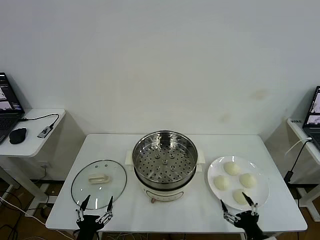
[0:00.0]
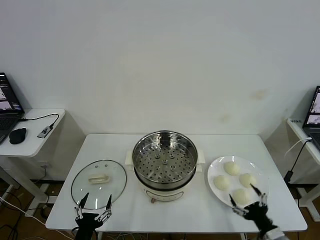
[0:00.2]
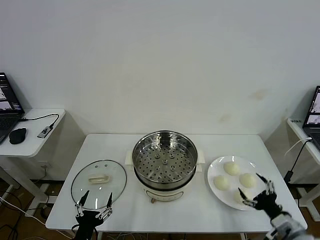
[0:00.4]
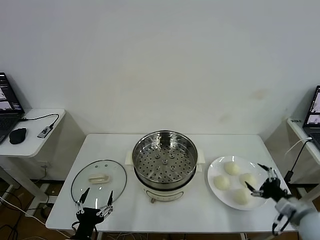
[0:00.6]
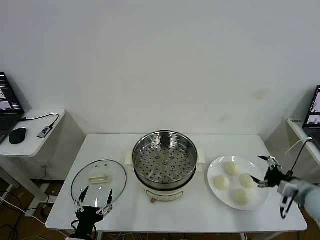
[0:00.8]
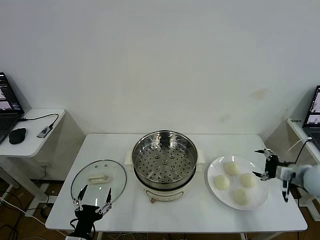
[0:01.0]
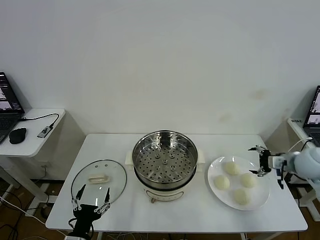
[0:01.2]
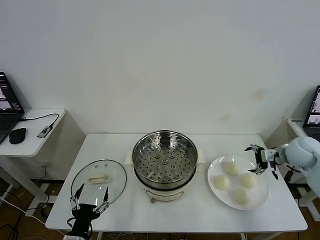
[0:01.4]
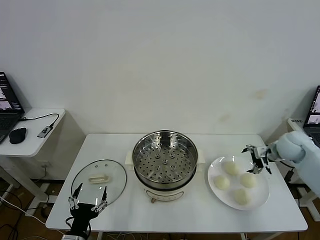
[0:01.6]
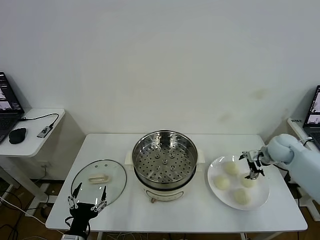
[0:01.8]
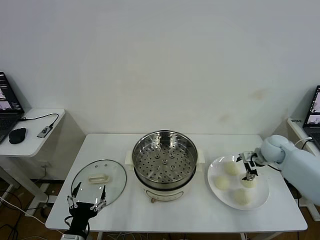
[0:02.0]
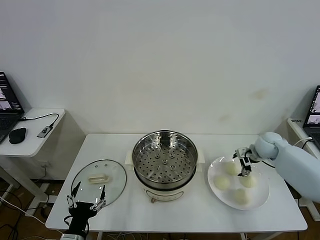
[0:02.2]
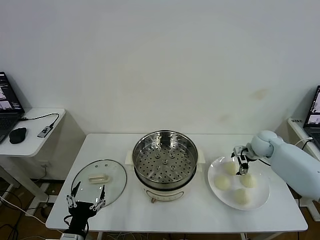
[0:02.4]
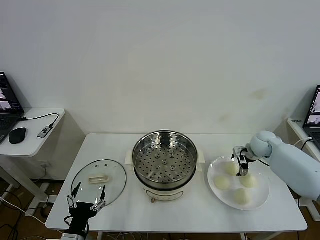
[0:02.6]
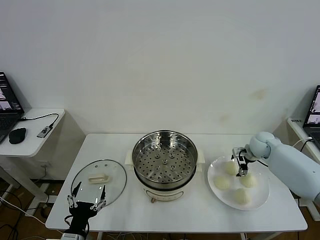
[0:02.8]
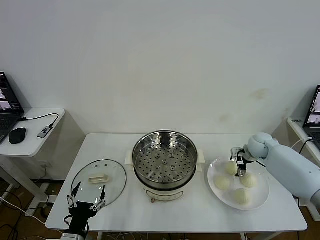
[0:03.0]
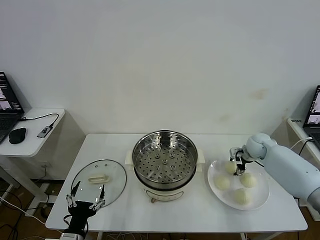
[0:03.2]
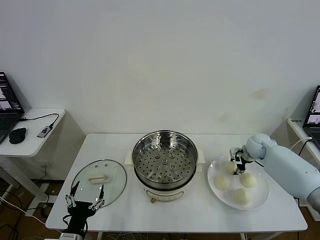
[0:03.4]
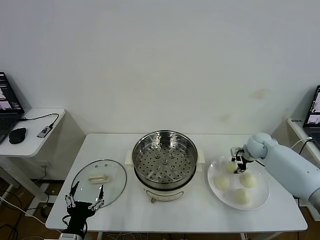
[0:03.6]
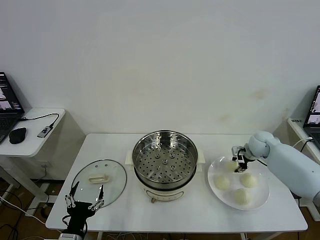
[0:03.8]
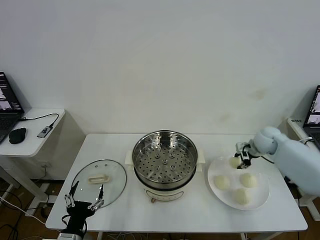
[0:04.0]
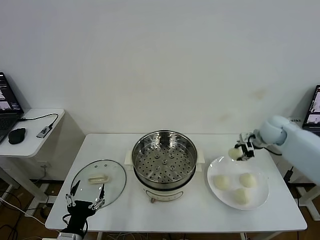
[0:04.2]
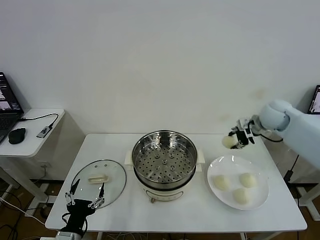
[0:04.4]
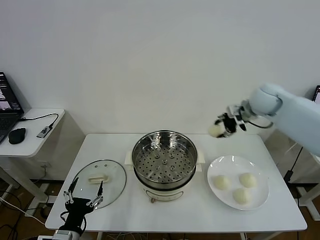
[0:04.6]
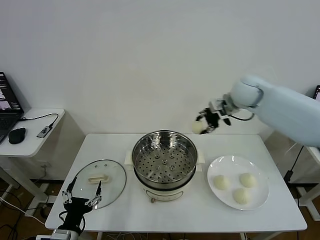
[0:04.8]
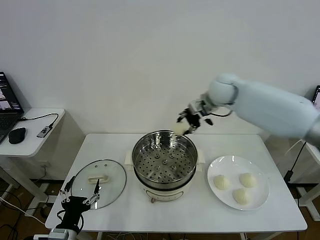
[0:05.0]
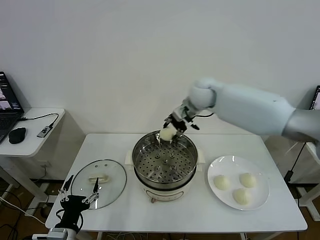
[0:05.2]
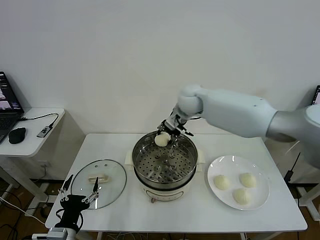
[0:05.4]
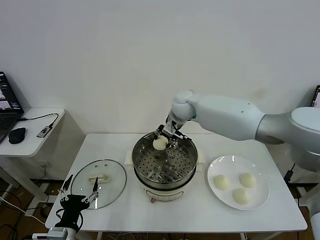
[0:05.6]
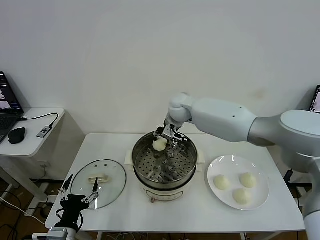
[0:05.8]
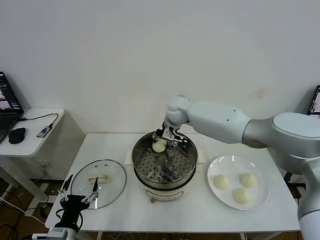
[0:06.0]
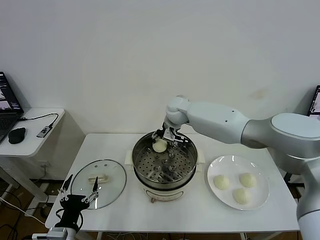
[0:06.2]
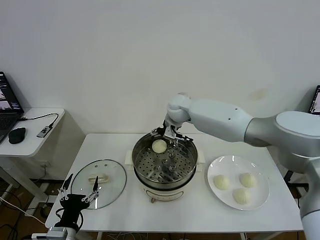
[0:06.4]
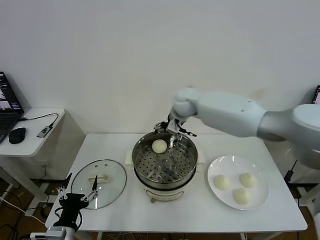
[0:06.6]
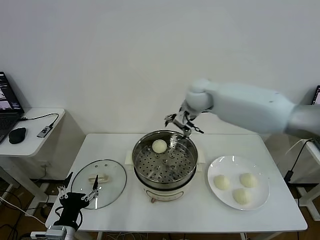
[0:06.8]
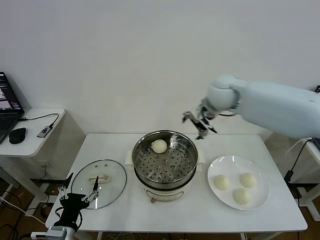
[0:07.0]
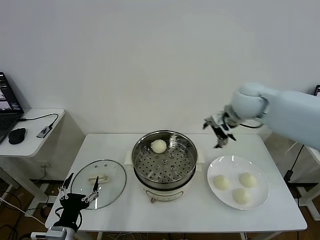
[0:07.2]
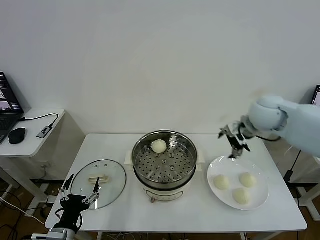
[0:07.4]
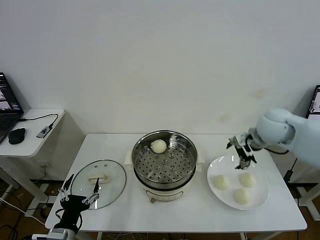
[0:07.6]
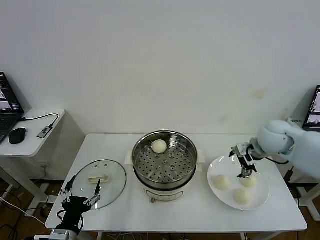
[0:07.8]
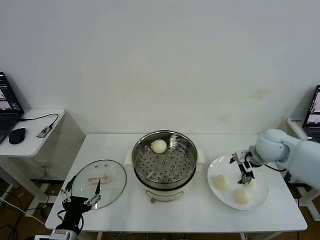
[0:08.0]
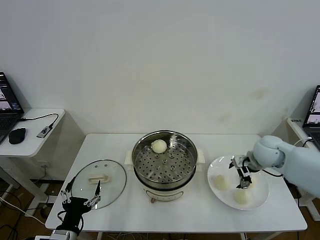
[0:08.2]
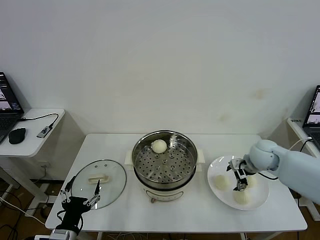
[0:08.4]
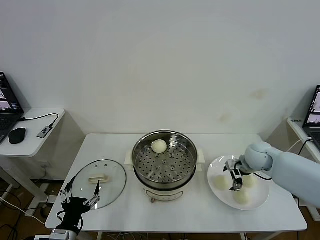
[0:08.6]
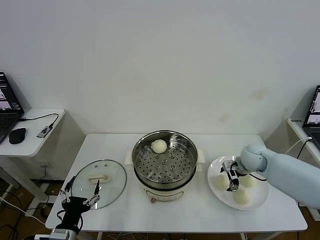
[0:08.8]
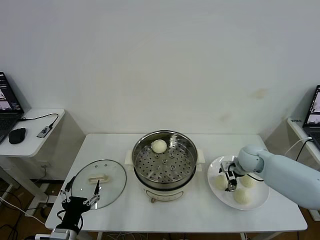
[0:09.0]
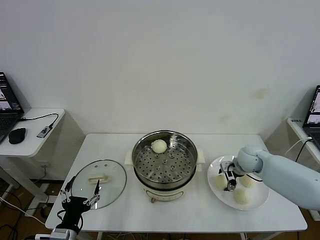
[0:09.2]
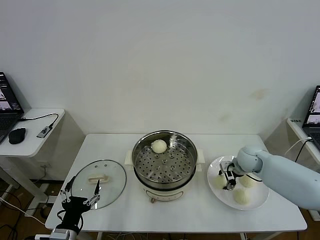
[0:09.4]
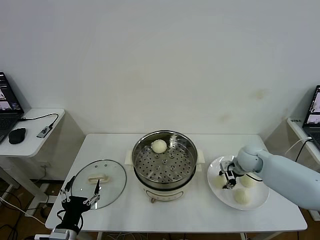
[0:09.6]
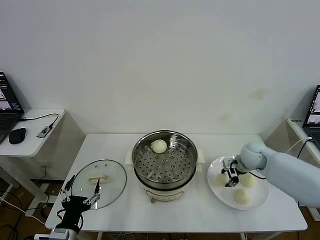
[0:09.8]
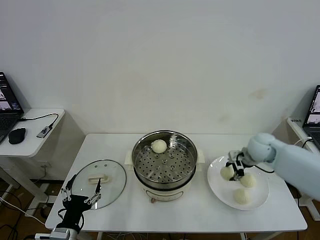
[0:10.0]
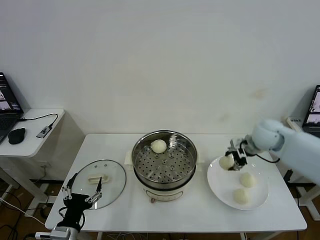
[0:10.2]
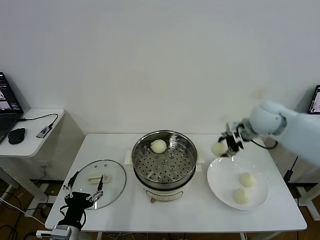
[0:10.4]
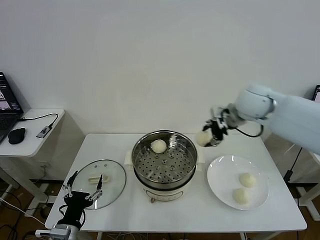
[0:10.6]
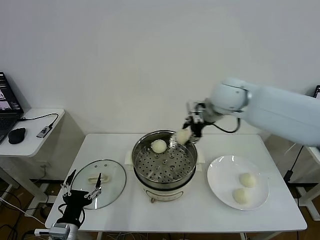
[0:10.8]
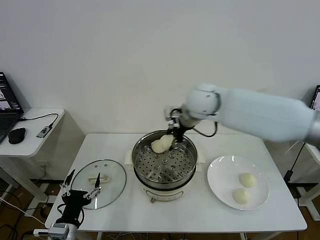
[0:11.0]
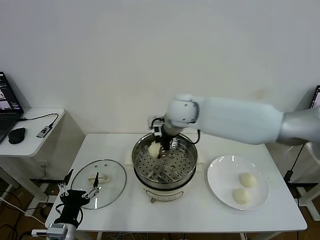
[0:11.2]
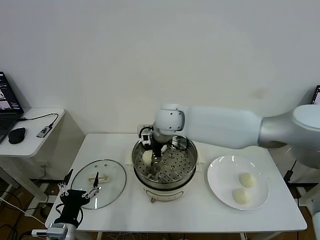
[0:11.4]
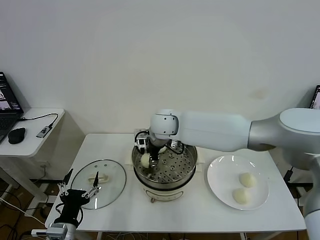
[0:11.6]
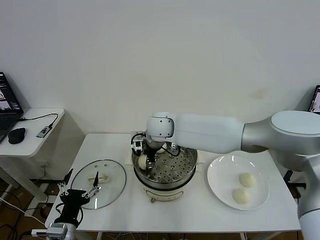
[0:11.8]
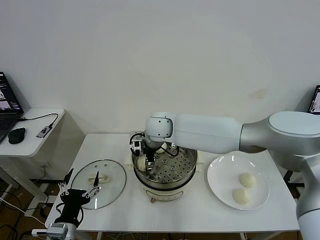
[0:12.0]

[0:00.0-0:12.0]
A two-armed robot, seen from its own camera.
Task of the whole recording: take steamed baozi put them in steamer then cover it.
Step, 0:00.0 to 0:03.4: Grasp the baozi in the plate with right gripper.
Step, 0:03.6 to 0:06.4: Place the baozi on the steamer with right gripper.
Step, 0:06.6 to 0:09.2: Grasp the baozi in the plate with right gripper.
0:01.6 to 0:03.0: The right gripper travels downward and forward by some 10 cm.
0:03.0 to 0:04.4: The right gripper heads upward, covering about 20 cm, and closes up.
0:04.4 to 0:06.0: The right gripper shifts some 30 cm to the left.
0:06.0 to 0:07.6: The right gripper is displaced to the right and backward by roughly 30 cm, and opens its fingers.
0:07.6 to 0:09.0: The right gripper is displaced downward by some 15 cm.
0:09.0 to 0:10.4: The right gripper shifts approximately 20 cm upward, and closes its fingers.
0:10.4 to 0:12.0: The right gripper shifts about 30 cm to the left, and opens up.

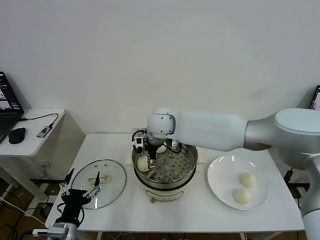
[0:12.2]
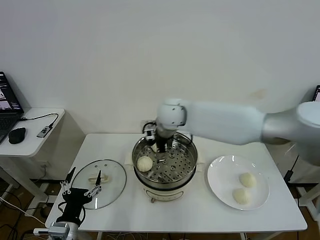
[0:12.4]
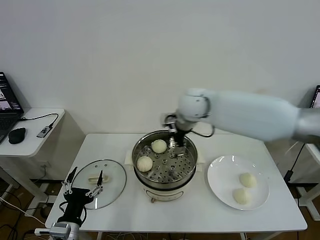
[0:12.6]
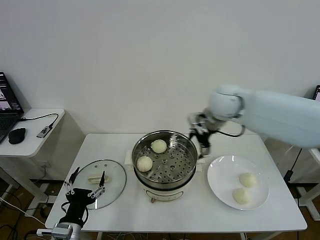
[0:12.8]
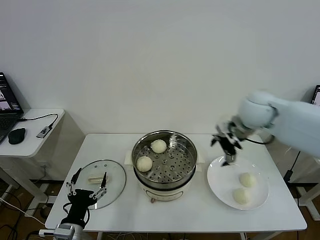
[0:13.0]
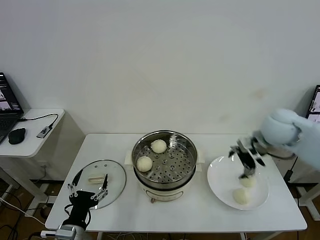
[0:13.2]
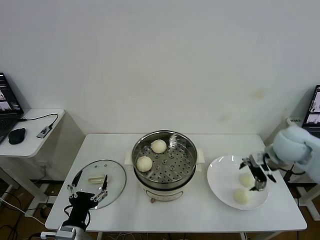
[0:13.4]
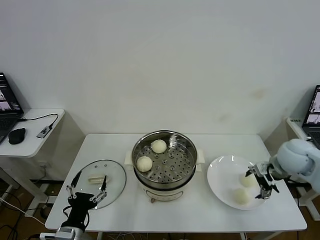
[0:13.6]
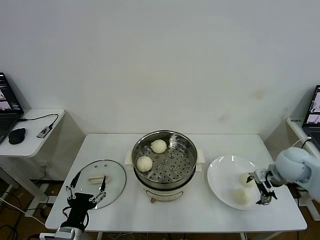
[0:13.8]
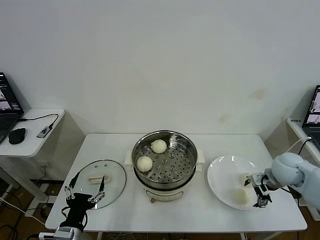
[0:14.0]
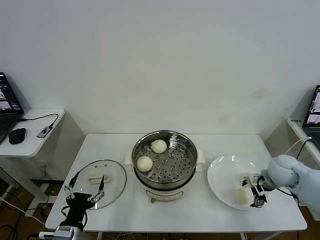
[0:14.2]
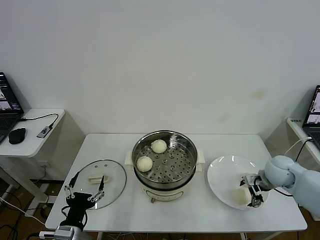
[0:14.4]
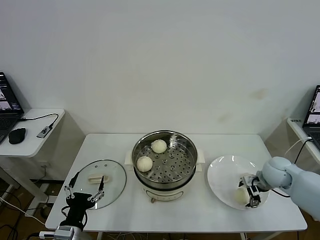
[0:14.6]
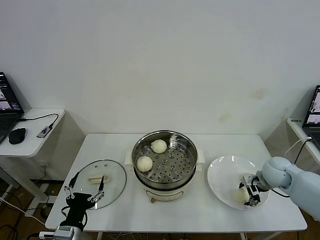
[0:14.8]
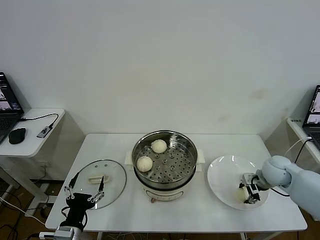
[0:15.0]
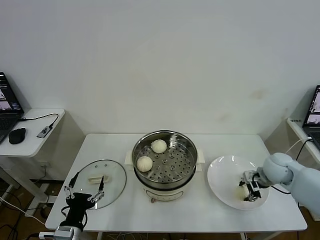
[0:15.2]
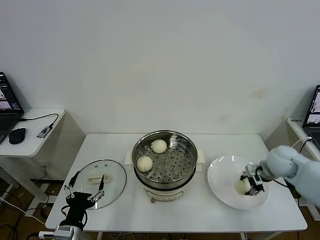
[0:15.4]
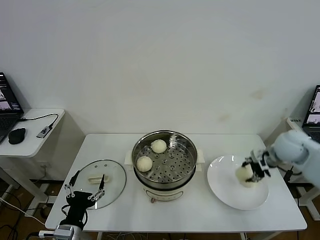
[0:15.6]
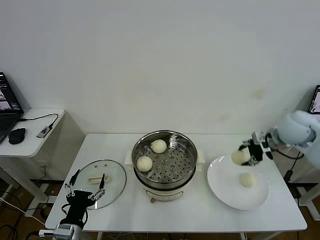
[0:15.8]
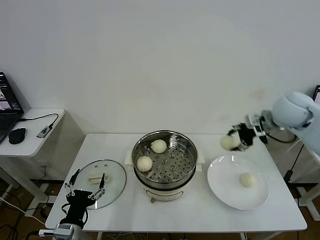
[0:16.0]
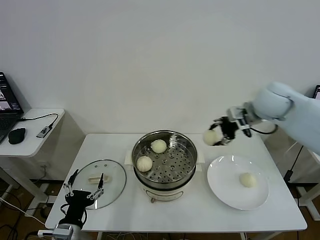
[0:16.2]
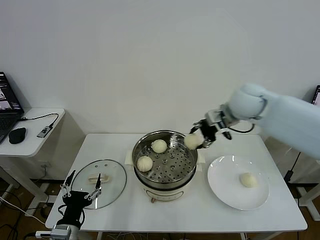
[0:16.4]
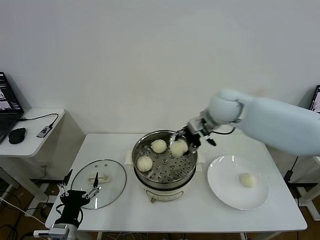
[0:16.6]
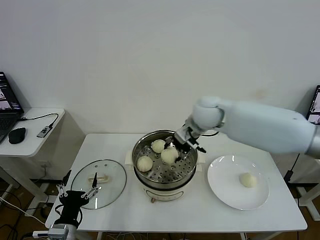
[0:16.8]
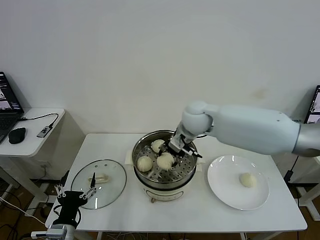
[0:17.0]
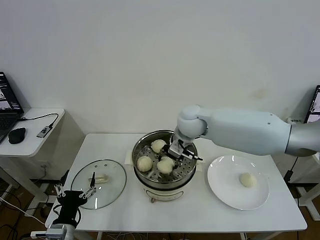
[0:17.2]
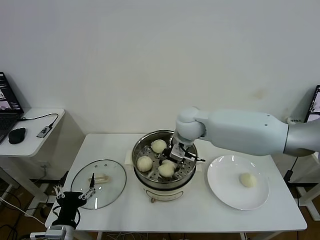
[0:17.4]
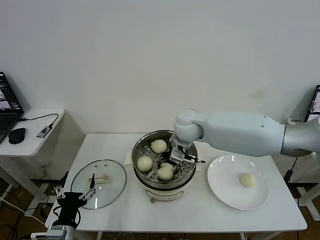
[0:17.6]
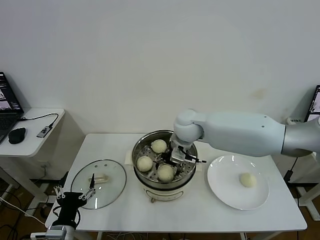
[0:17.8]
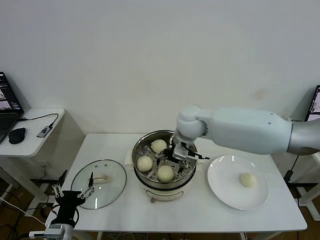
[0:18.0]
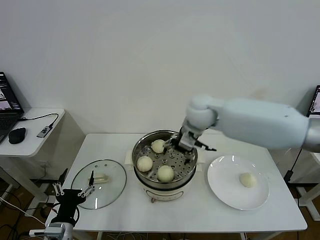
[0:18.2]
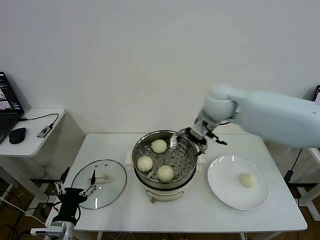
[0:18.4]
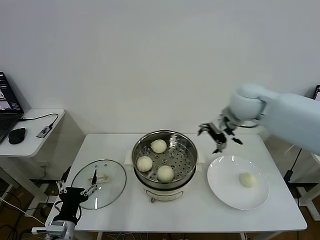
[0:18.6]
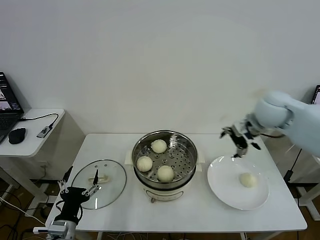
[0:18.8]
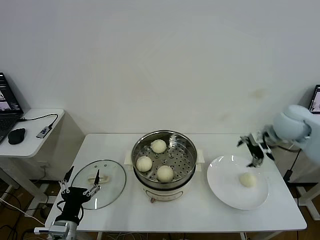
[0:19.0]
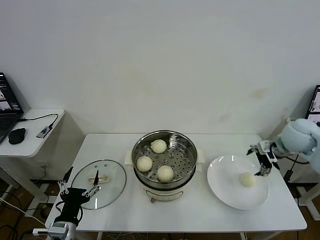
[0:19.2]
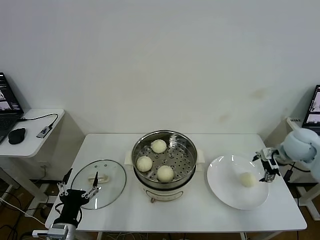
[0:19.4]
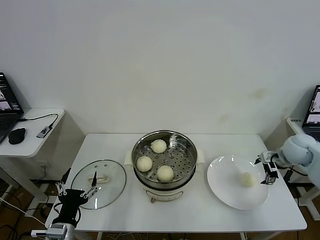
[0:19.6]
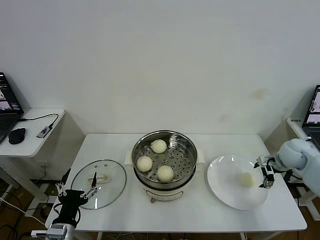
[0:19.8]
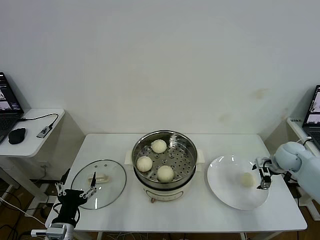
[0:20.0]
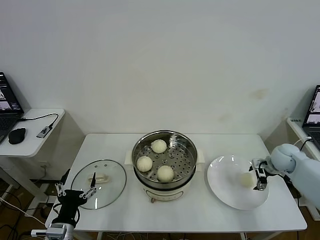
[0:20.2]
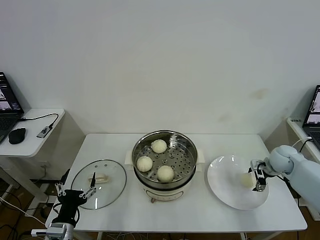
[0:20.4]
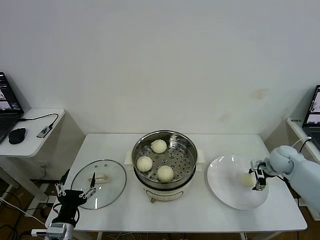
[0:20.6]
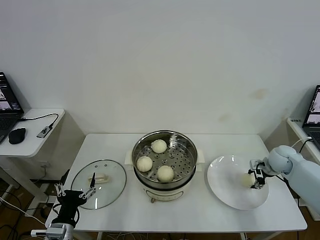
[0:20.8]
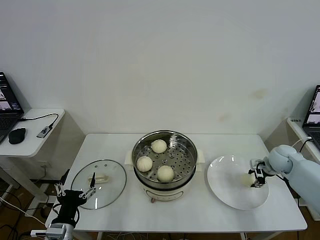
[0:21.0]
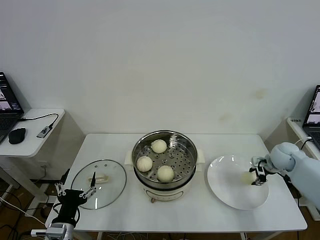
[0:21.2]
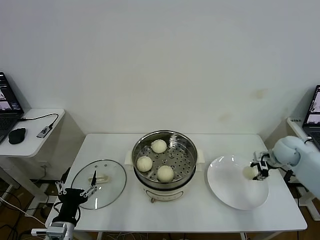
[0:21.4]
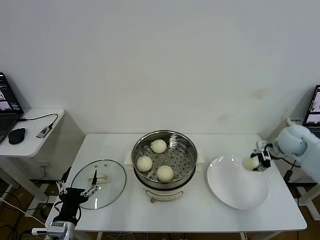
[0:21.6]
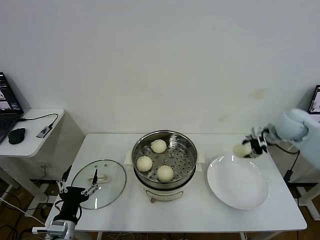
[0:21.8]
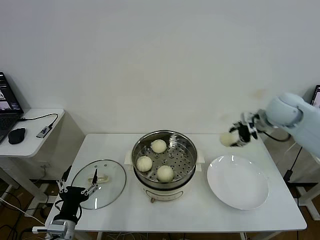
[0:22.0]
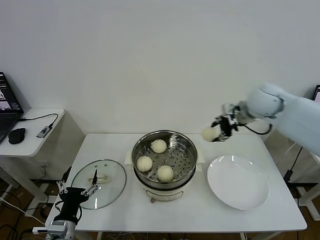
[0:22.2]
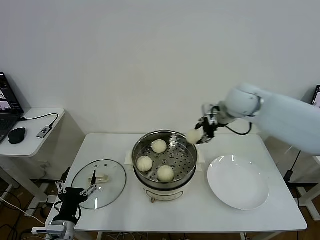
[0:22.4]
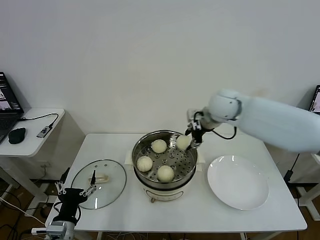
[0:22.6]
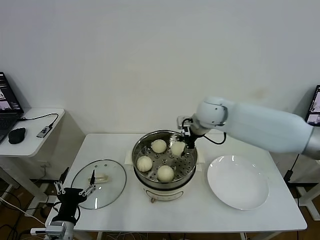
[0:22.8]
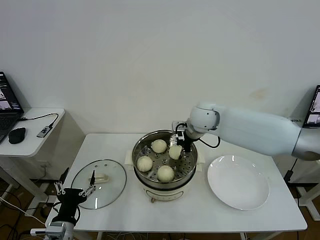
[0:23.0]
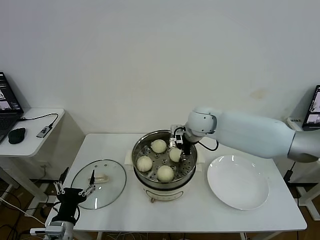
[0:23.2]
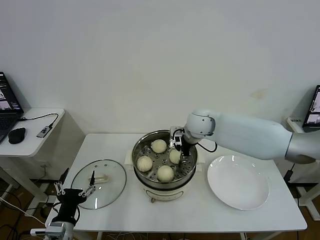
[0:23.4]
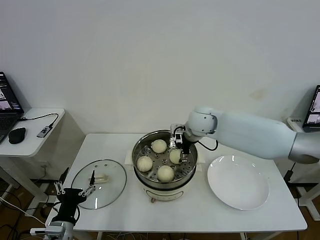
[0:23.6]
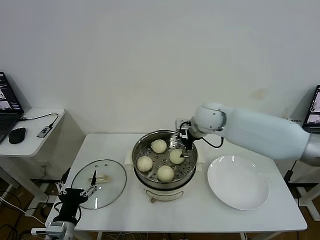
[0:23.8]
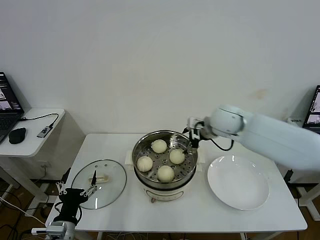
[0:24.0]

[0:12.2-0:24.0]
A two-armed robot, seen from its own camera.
Task of the whole recording: take steamed baozi put them in steamer then cover it.
Step, 0:12.2 to 0:15.0: Grasp the baozi in the plate with right gripper.
Step, 0:15.2 to 0:17.8: Place the baozi on the steamer with right gripper.
Step, 0:18.2 to 0:21.0: Grasp the baozi in the plate with right gripper.
Step, 0:21.2 to 0:23.6: Place the baozi on the steamer with right gripper.
0:12.2 to 0:13.6: The right gripper is displaced to the right by approximately 40 cm.
0:13.6 to 0:15.2: The right gripper travels downward by roughly 5 cm, and closes up.
0:15.2 to 0:16.6: The right gripper moves to the left and upward, about 30 cm.
0:16.6 to 0:18.2: The right gripper opens up.
0:18.2 to 0:19.6: The right gripper travels to the right by approximately 35 cm.
0:19.6 to 0:21.0: The right gripper goes roughly 5 cm downward, and closes its fingers.
0:21.0 to 0:22.6: The right gripper is displaced to the left and upward by approximately 35 cm.
0:22.6 to 0:24.0: The right gripper opens up.
